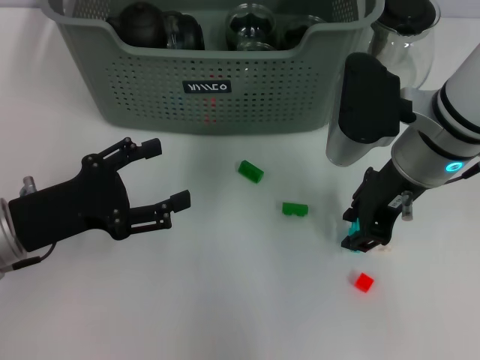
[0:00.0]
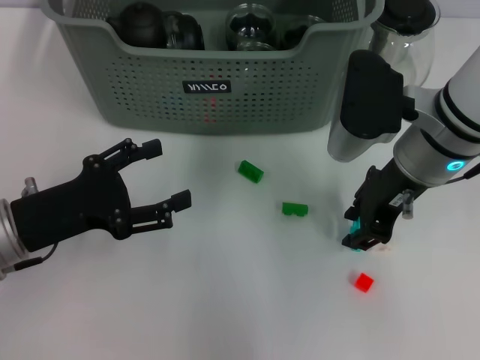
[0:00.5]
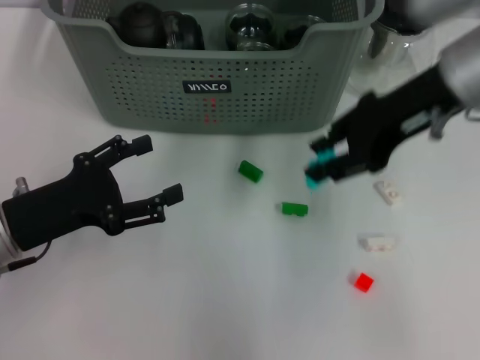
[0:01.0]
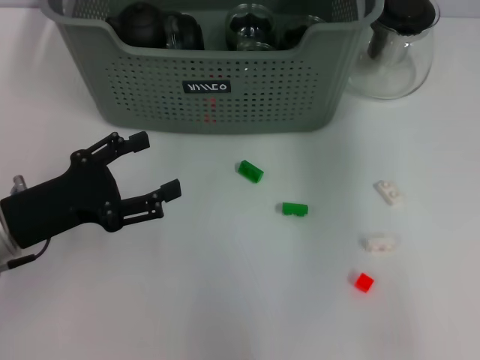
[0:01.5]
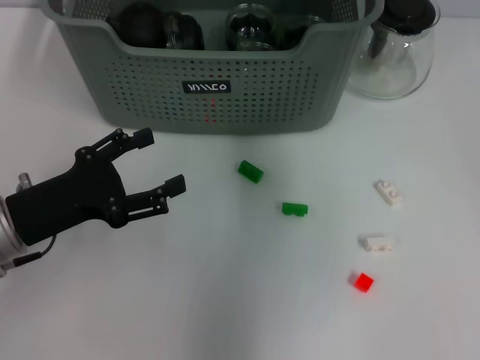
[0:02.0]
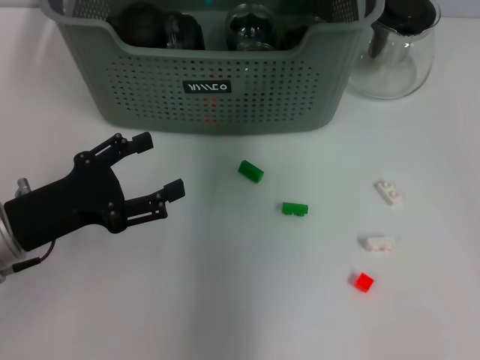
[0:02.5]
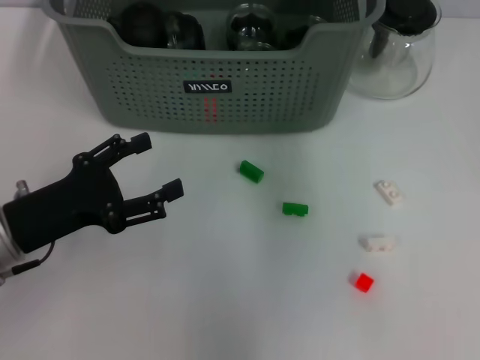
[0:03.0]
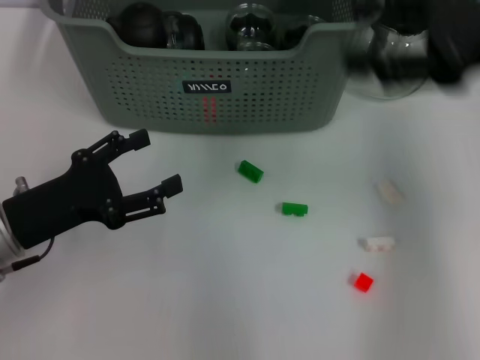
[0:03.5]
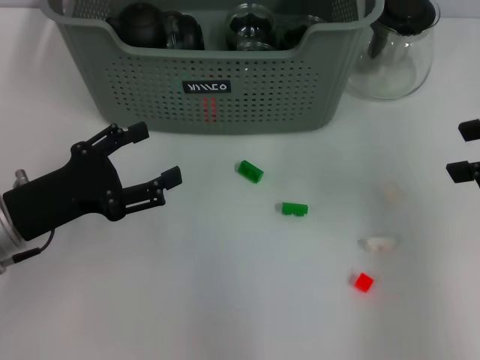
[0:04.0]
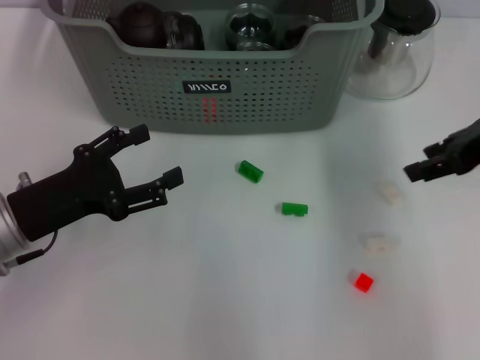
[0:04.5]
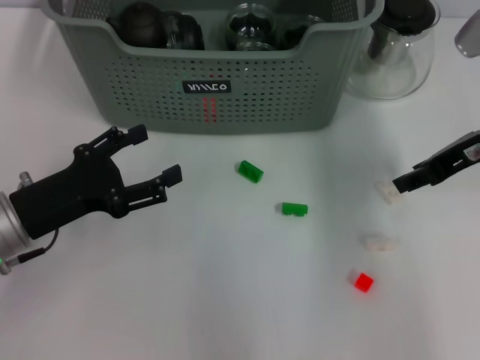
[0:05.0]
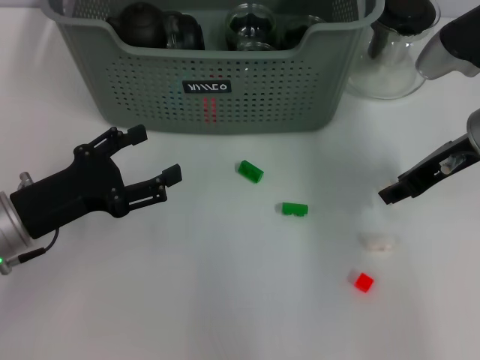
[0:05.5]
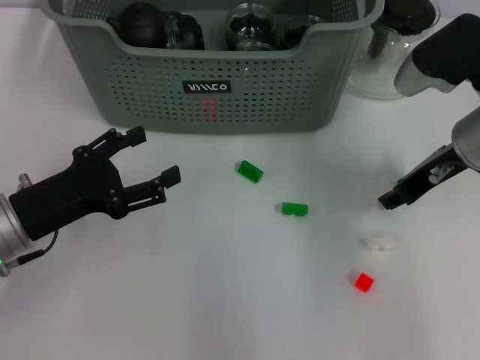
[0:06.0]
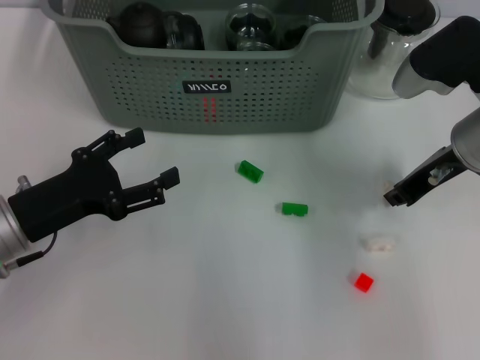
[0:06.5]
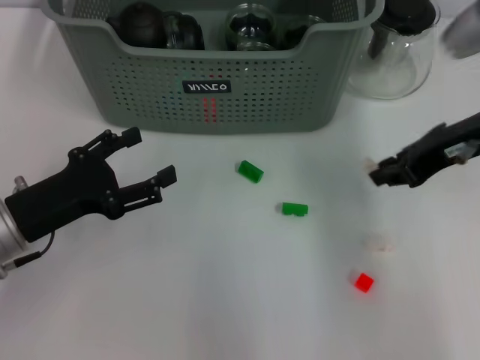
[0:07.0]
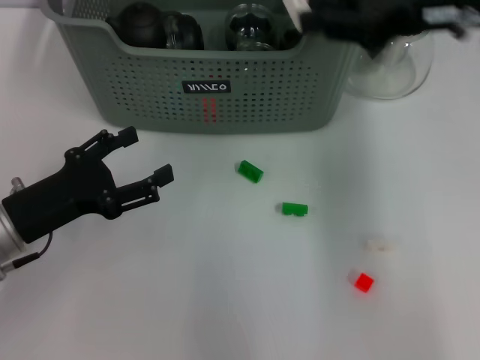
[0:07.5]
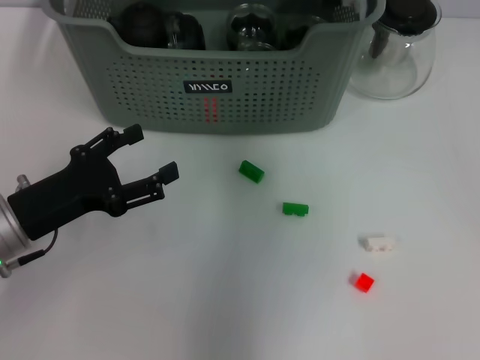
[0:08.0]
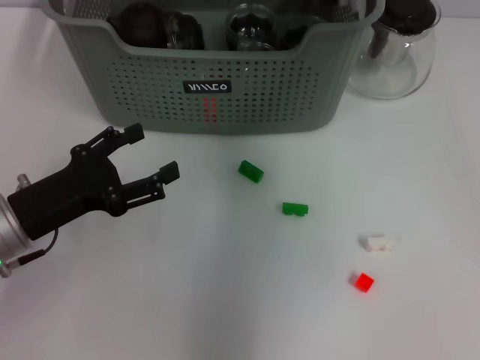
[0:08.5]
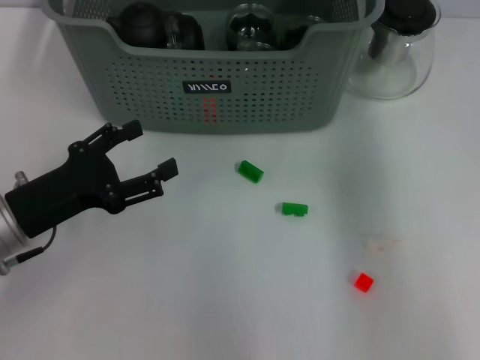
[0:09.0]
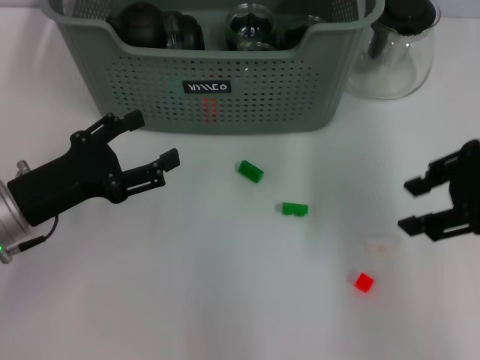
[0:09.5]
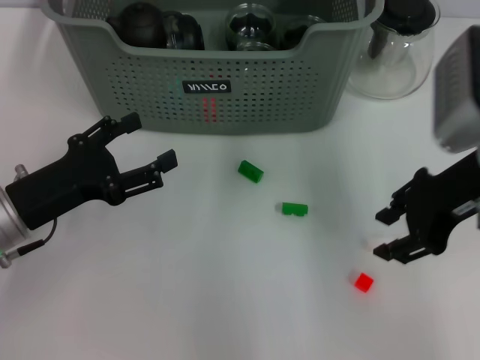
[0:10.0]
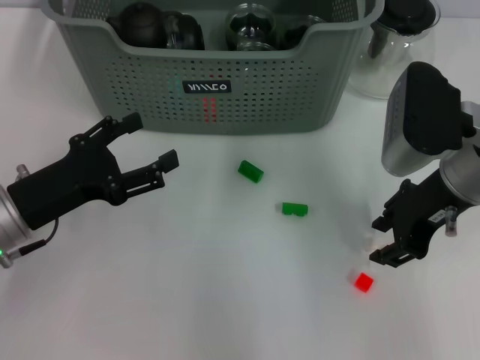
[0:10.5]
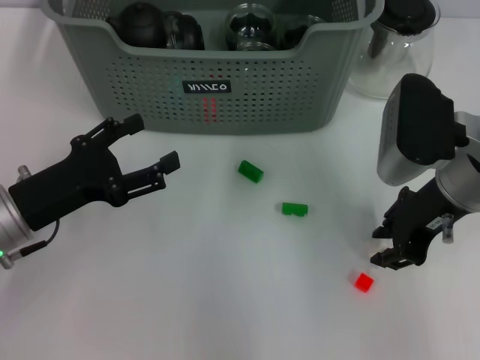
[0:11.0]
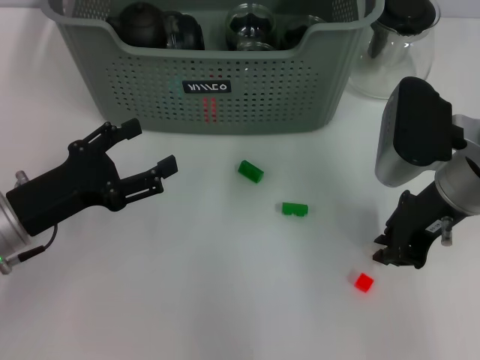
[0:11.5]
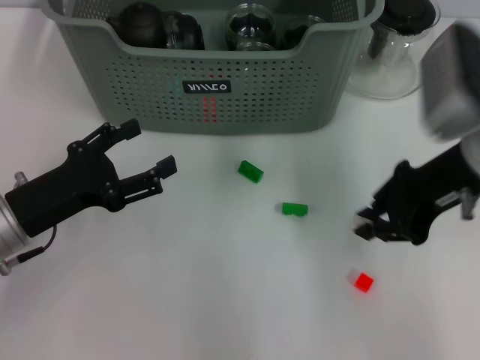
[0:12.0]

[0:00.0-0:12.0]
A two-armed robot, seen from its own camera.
Task of the whole recording: pick up the teacup on the table and place it into the storage bin, pick up the block on the table and place it into the storage bin.
Step, 0.5 to 2.5 s: Place the light blue block in the storage box with right gripper.
Step, 3.0 to 6.5 s: Grasp the white block with right gripper.
Step, 7.0 to 8.5 s: Place the white block in the storage box with right gripper.
Step, 9.0 to 11.5 s: Grasp the white block with right gripper.
0.0 to 2.0 s: The right gripper travels forward and upward by about 15 cm.
2.0 to 4.0 s: The right gripper travels to the right and backward by approximately 25 cm, and opens up.
4.0 to 6.0 s: The right gripper goes about 15 cm downward, to the left and forward.
6.0 to 8.0 s: The right gripper shifts approximately 20 cm to the left, upward and forward.
8.0 to 10.0 s: The right gripper travels to the right and backward by approximately 20 cm, and opens.
10.0 to 12.0 s: The right gripper closes up.

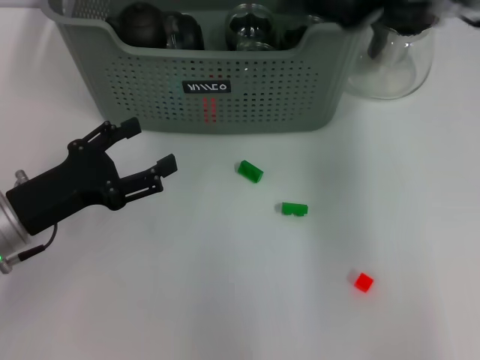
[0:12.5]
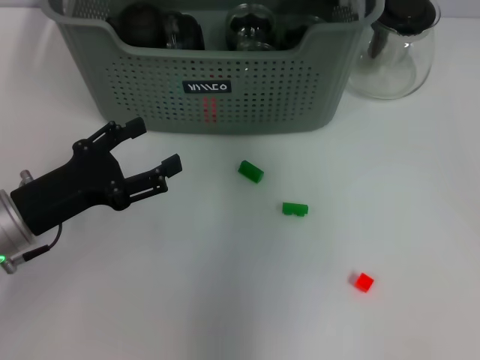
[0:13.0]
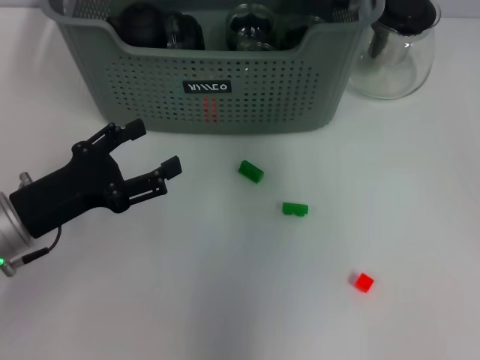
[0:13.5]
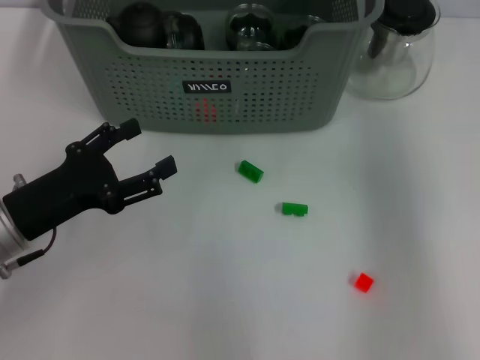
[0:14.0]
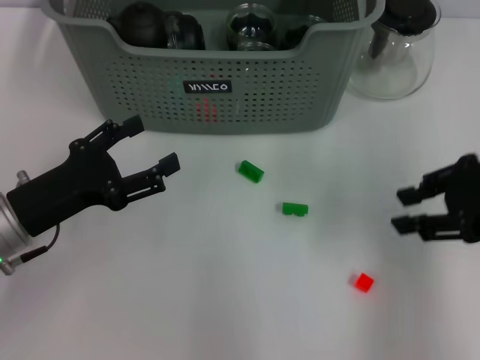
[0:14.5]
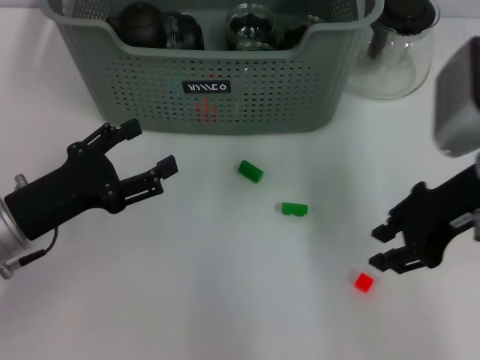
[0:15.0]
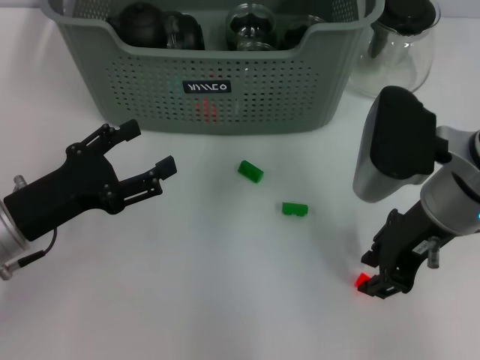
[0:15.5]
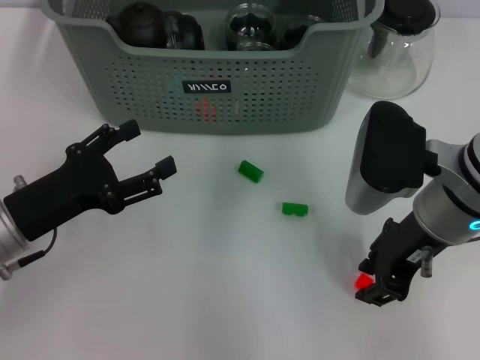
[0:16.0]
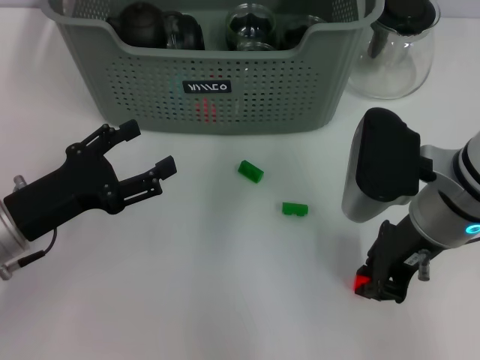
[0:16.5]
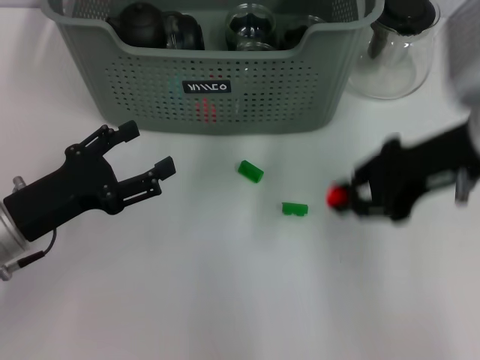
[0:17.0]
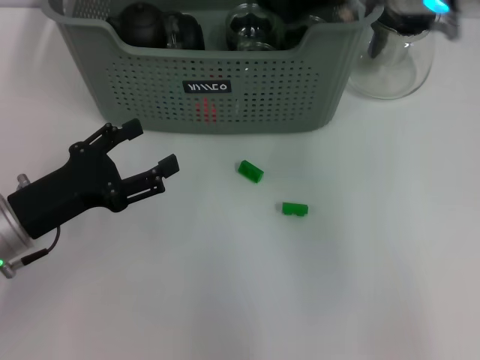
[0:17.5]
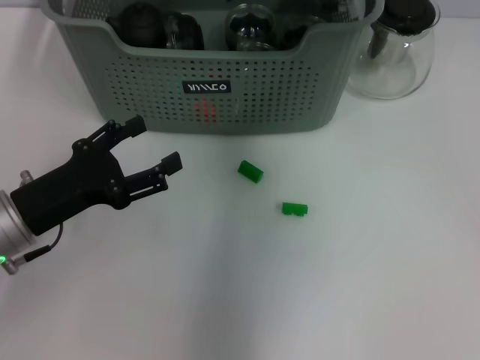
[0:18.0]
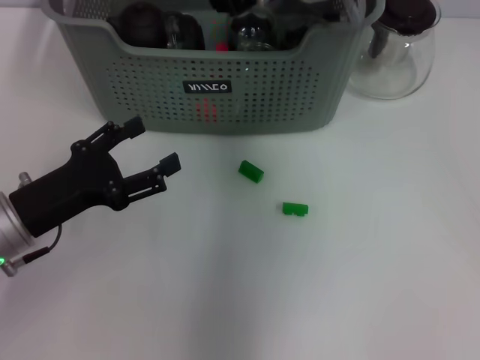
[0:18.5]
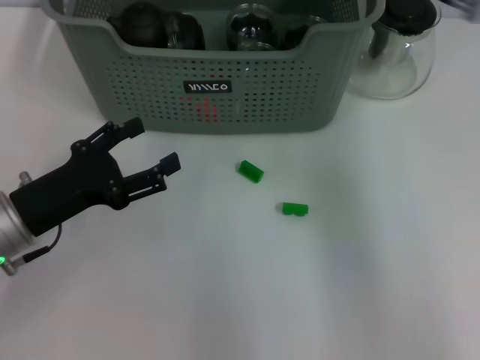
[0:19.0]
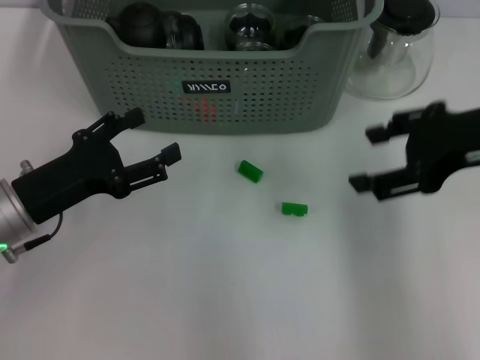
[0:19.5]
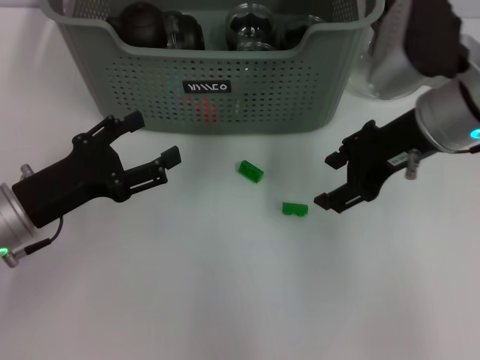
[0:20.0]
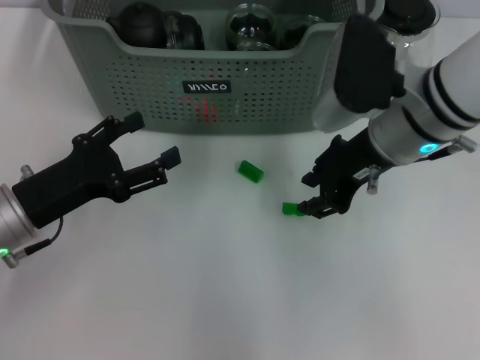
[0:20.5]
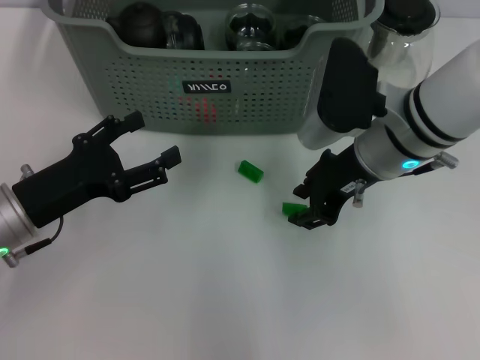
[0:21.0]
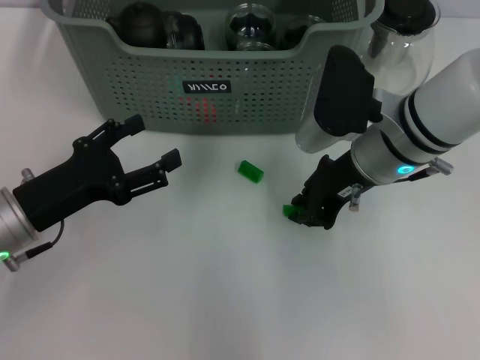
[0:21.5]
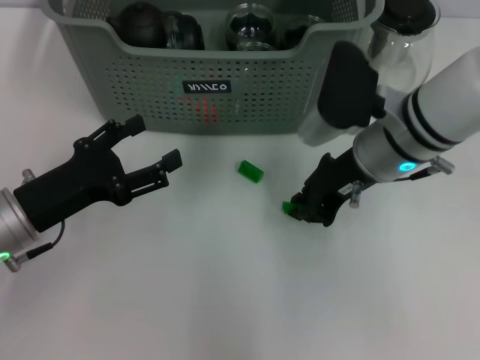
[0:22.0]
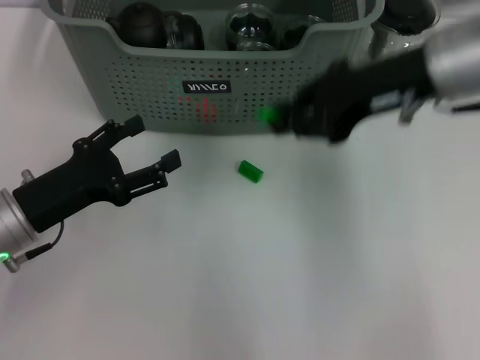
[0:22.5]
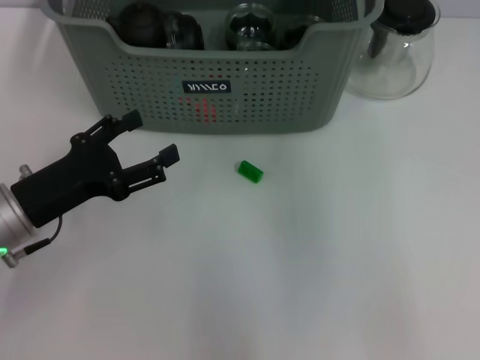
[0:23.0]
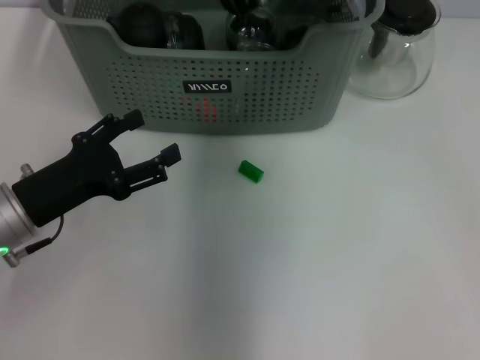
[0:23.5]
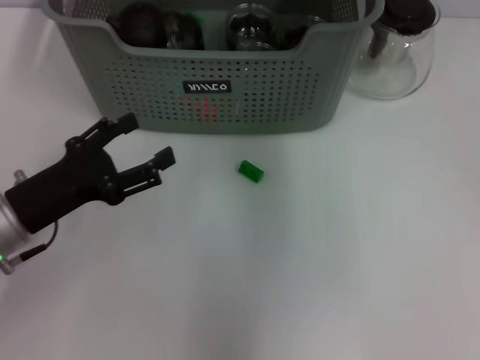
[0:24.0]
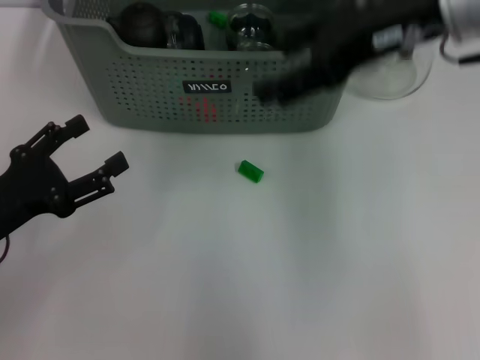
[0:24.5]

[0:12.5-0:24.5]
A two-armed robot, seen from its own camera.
Task of the whole recording: pick up the teacup on the table and place it into the storage bin, pick up the block on the table and place it into the storage bin.
Step, 12.5 to 13.5 s: Place the white block in the storage box with right gripper.
Step, 14.0 to 16.0 s: Grasp the orange block with right gripper.
Step, 16.5 to 18.5 s: Place the orange block in the storage box with right gripper.
Step, 19.0 to 21.5 s: Grasp the green block with right gripper.
Step, 22.0 to 23.5 s: Place the green block in the storage box with right gripper.
12.5 to 14.5 s: The right gripper goes approximately 15 cm to the right, downward and backward, and opens its fingers.
14.5 to 16.5 s: The right gripper moves to the left, roughly 10 cm.
16.5 to 18.5 s: The right gripper travels forward, to the left and upward by some 20 cm.
18.5 to 20.5 s: The right gripper shifts about 15 cm backward and to the right, and opens, then closes again.
20.5 to 22.5 s: The right gripper heads upward, covering approximately 5 cm, and closes up.
22.5 to 24.5 s: The right gripper reaches some 10 cm forward, then returns, and opens its fingers; the left gripper ends up approximately 5 cm from where it was.

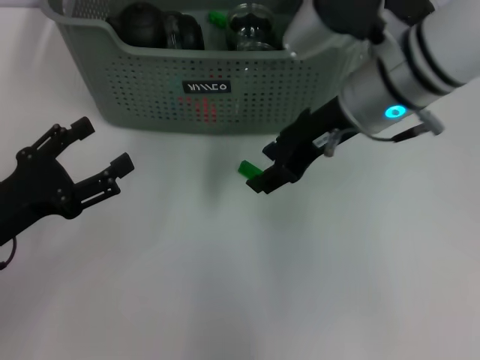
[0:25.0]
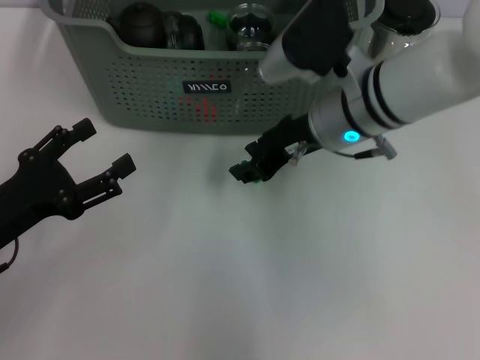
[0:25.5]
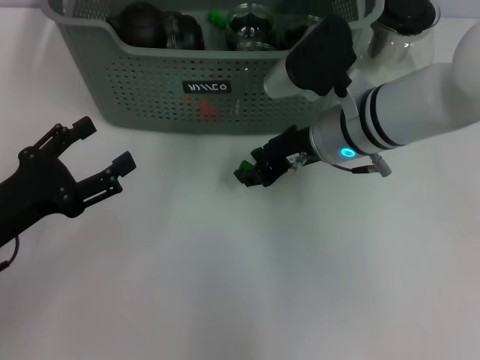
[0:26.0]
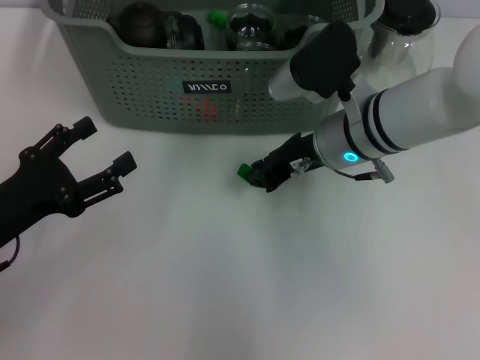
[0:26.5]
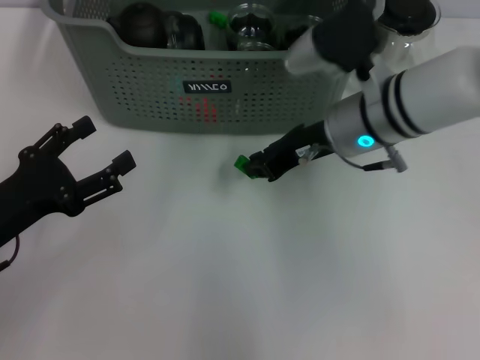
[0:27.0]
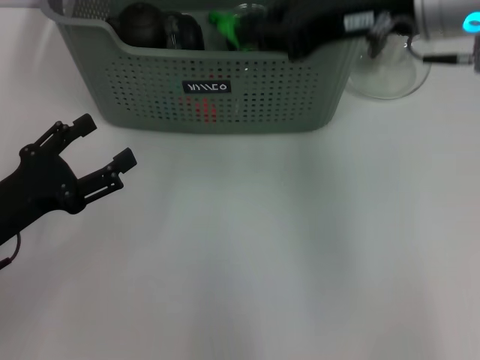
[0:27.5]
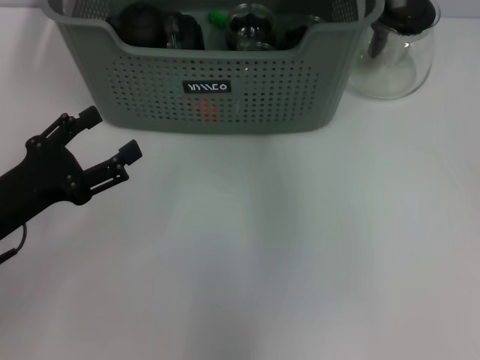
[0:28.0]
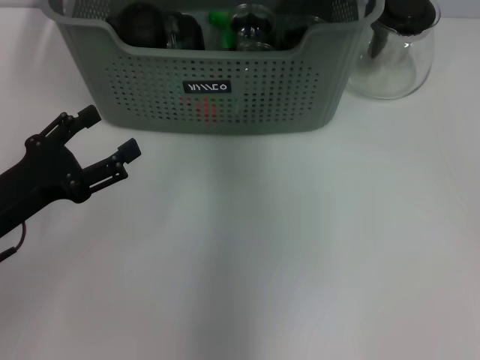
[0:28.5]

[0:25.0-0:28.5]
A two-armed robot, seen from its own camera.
Task of the whole recording: pick up the teacup on the table and place it into the storage bin, pick up the block on the table and place it into the storage bin.
Step, 25.0 to 26.5 s: Grasp the green block with right gripper.
Step, 27.0 to 28.5 s: Place the green block in the storage box with right gripper.
25.0 to 27.0 s: The right gripper heads downward, covering about 5 cm, and closes up.
27.0 to 28.5 s: The right gripper travels forward and upward by about 15 cm.
